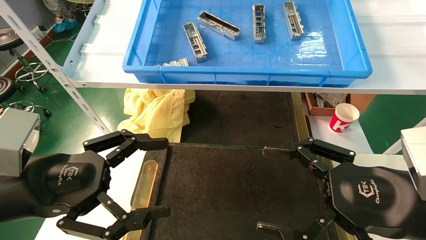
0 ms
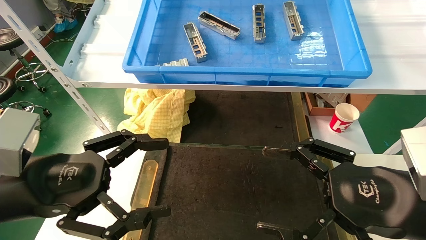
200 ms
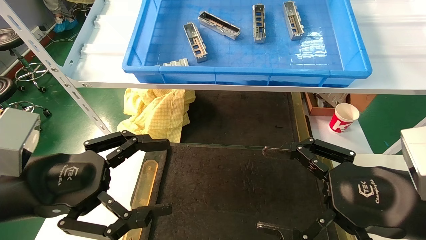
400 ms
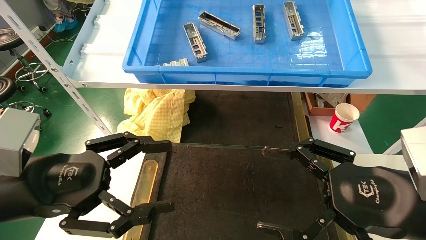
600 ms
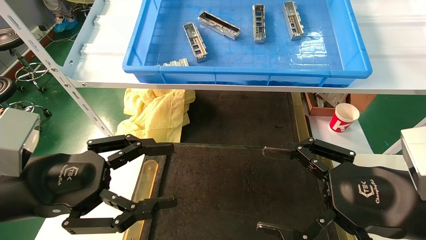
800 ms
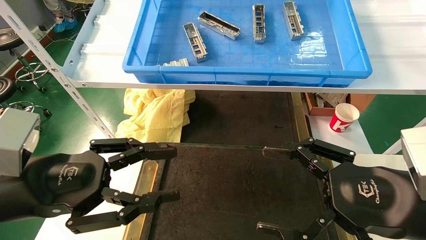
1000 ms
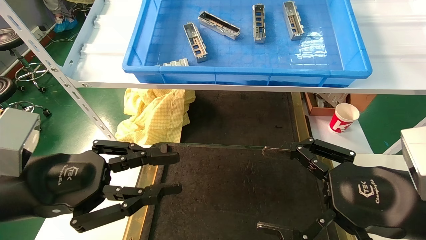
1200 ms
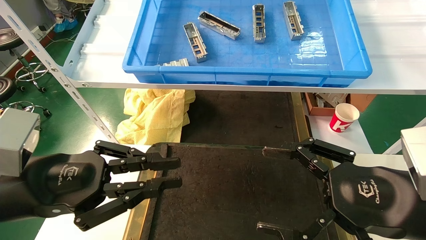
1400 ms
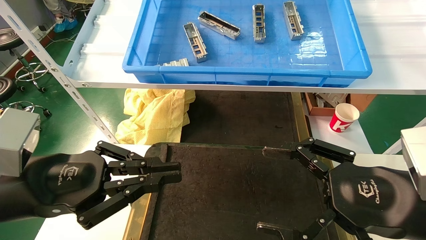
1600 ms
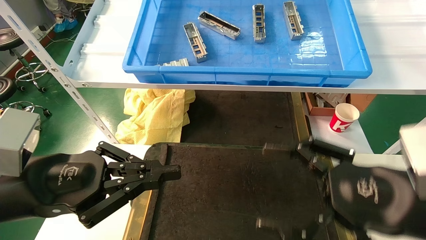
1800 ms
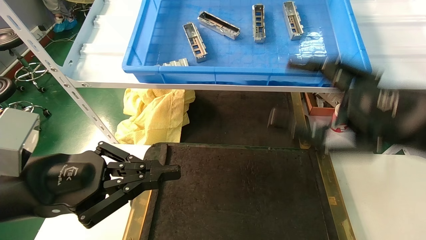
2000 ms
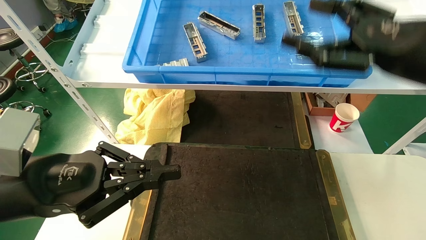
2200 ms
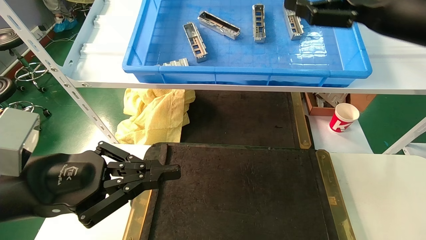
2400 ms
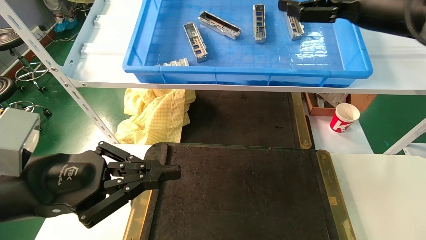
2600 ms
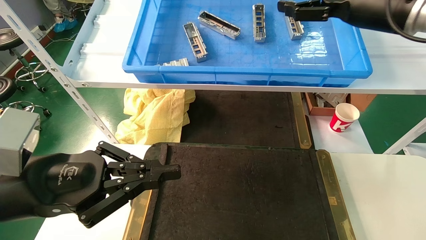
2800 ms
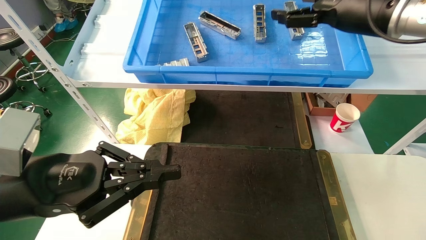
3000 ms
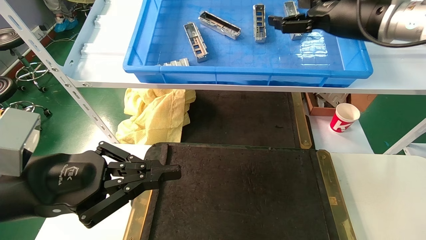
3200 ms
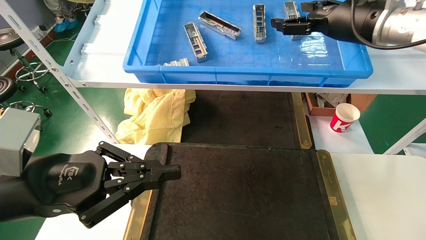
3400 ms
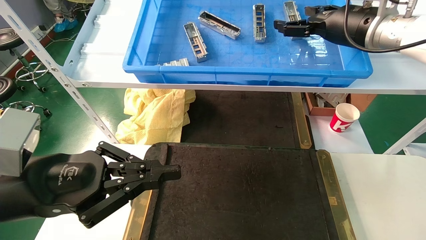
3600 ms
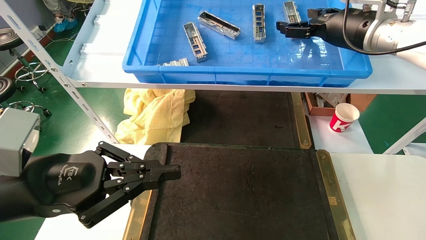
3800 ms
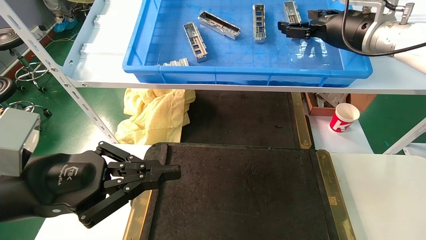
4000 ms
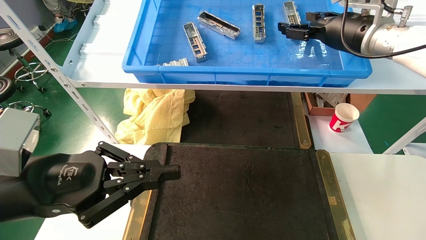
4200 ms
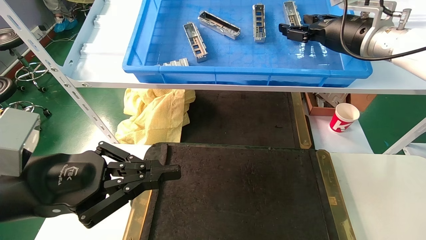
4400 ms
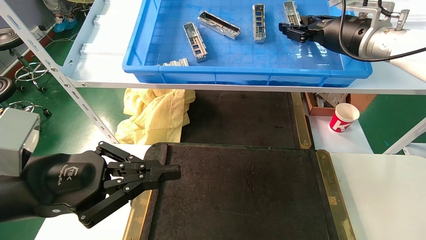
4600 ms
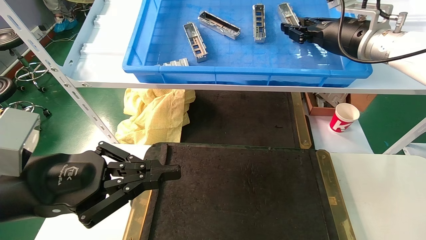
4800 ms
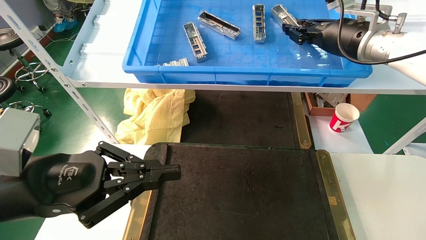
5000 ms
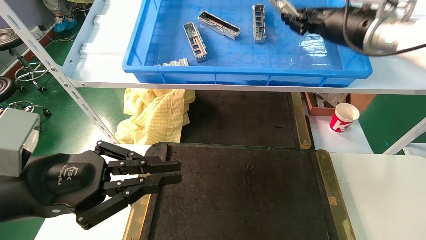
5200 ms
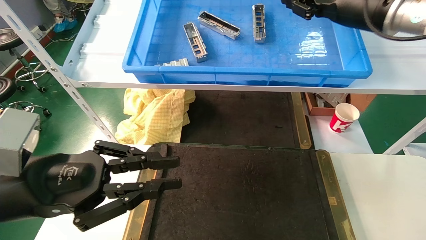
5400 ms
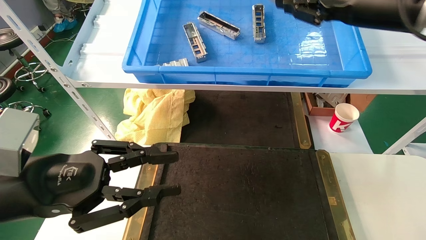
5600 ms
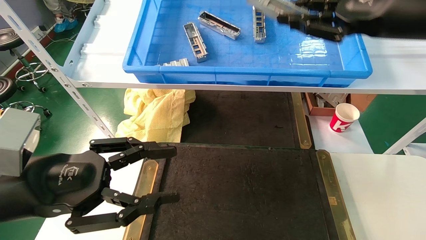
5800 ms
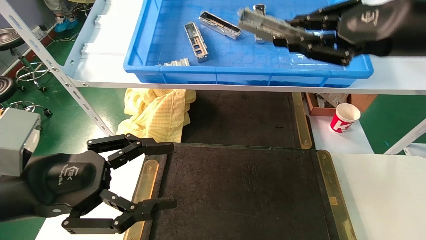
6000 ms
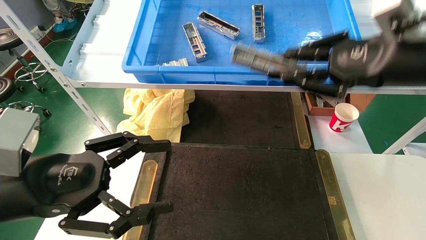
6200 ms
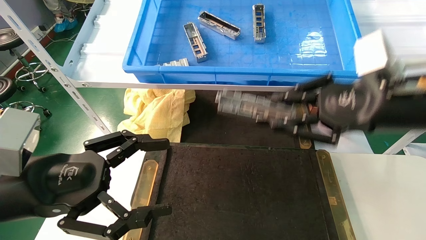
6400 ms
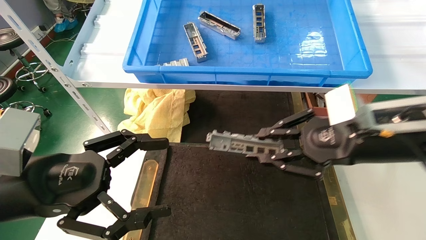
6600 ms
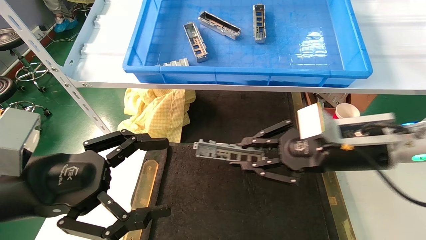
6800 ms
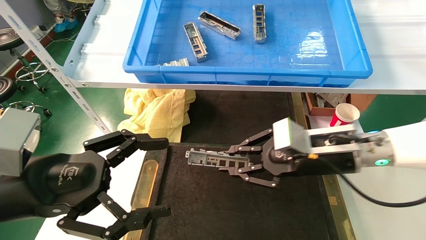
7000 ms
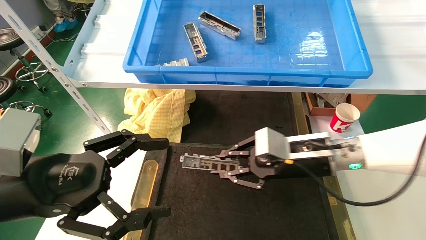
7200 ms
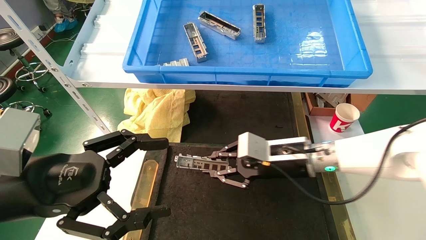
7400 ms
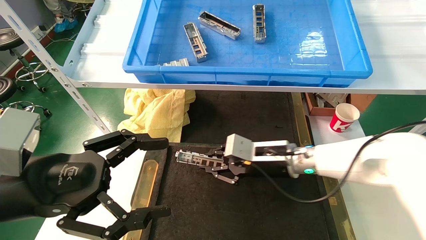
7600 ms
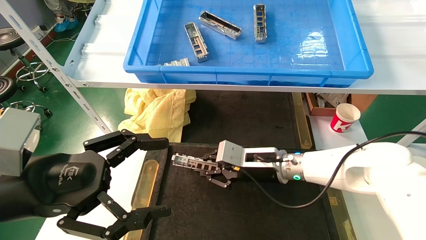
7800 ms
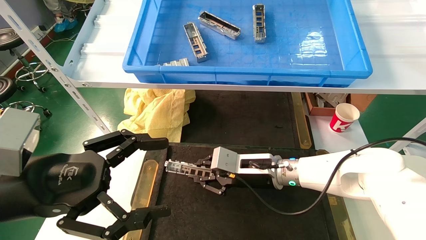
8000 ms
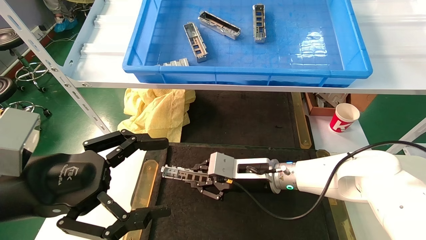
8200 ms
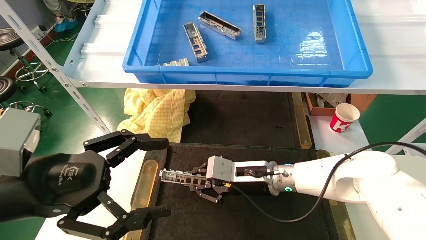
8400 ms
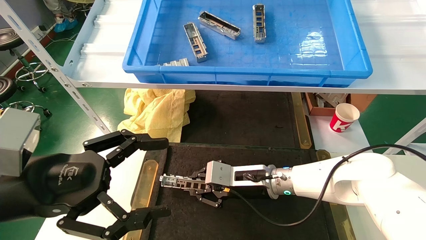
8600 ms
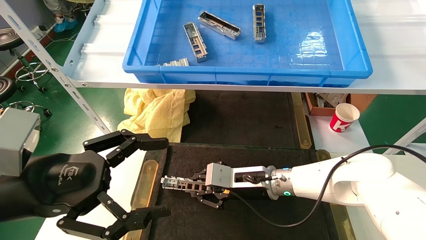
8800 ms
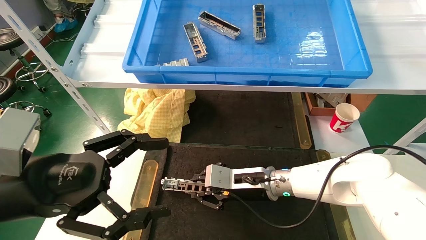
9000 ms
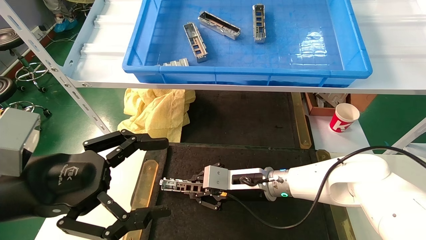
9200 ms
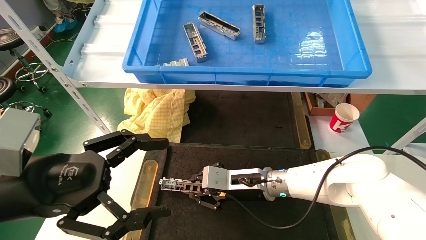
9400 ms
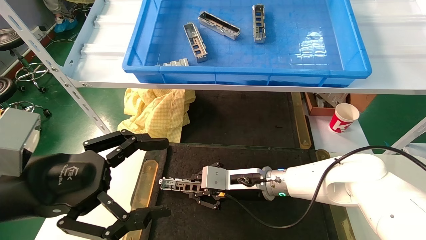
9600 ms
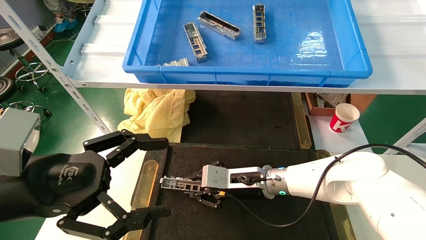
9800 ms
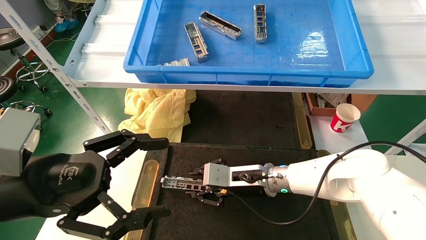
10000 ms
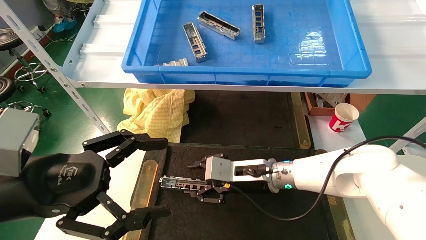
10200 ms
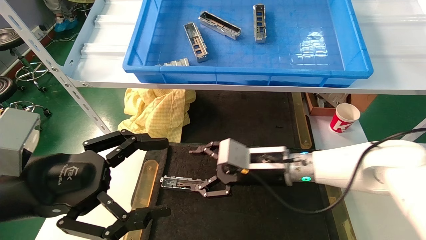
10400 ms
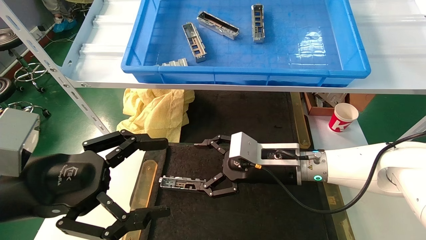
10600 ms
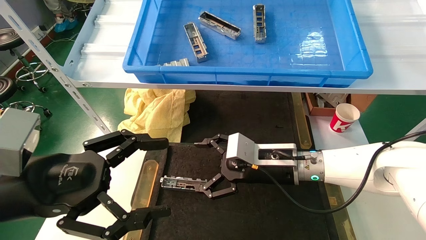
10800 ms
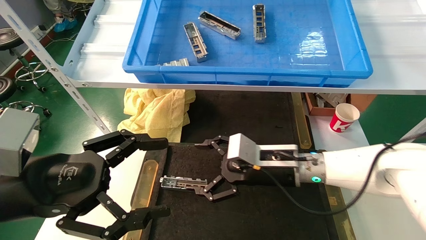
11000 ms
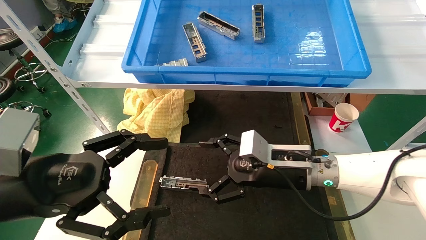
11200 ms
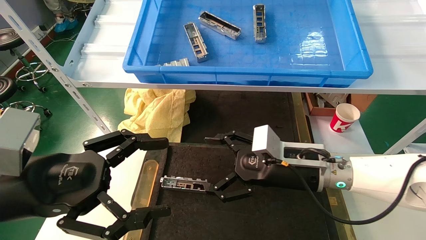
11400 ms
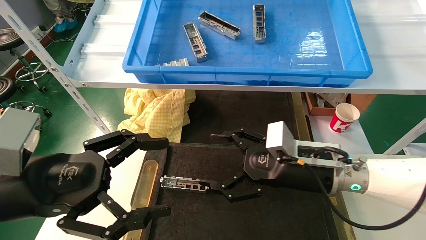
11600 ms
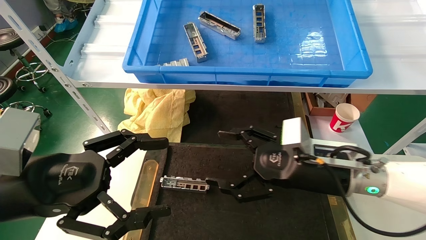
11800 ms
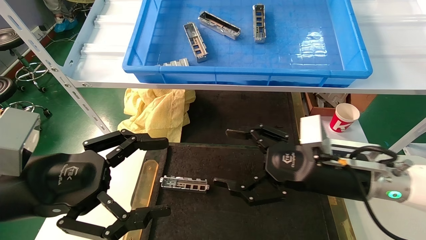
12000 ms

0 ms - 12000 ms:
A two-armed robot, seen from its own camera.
Task of the whole recording: grasp the part and place them on the black container.
Step, 2200 ms - 5000 ms: Pick up and lift the front USB bracket from the feeding area.
Step, 5200 ms - 10200 ms: Place the front USB bracket into the box.
0 ms - 1600 ms: The left gripper closes its fingers.
1600 ms - 3000 ms: The right gripper moves upward and forward, approximately 30 cm.
3000 ms - 4400 ms: The right gripper shifts roughly 5 cm forward.
4400 ms - 6000 ms: The right gripper heads backward, covering approximately 15 cm, and closes up. Meanwhile the left gripper opens its fingers.
6000 ms - 7600 ms: The right gripper moves downward, to the left and forward, about 30 cm; the left gripper opens its fingers.
7600 ms - 9000 ms: The right gripper heads downward, covering approximately 5 cm.
9000 ms - 10400 ms: The right gripper shifts by about 5 cm, and opens up.
10400 ms - 12000 ms: The right gripper shifts roughly 15 cm to the right and backward, and opens its fingers.

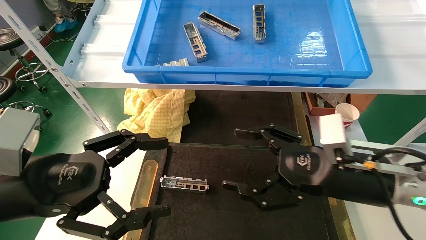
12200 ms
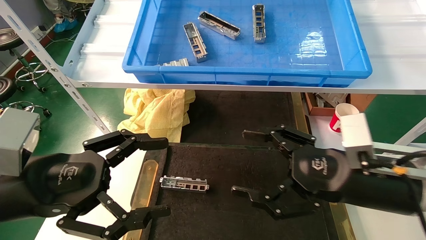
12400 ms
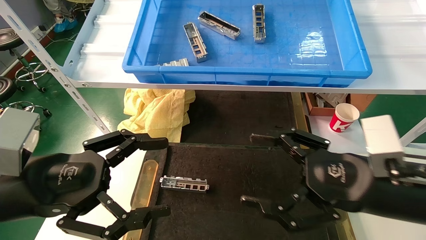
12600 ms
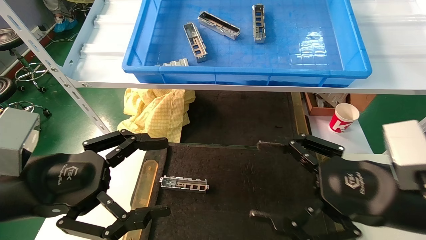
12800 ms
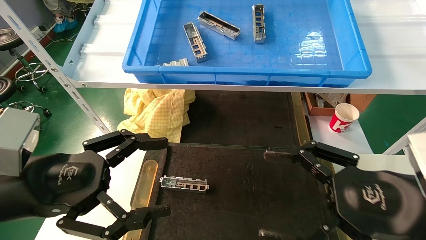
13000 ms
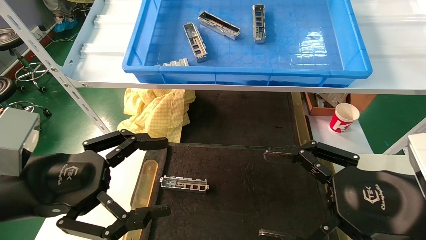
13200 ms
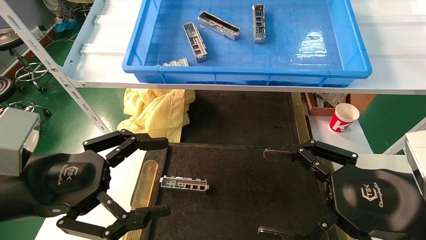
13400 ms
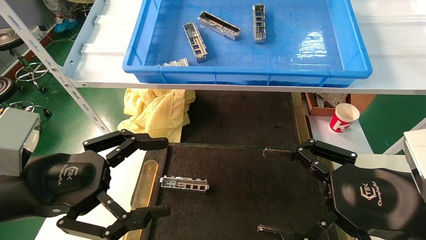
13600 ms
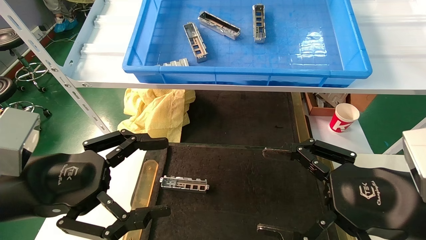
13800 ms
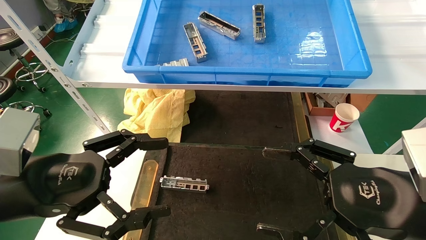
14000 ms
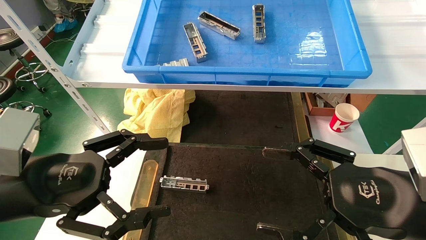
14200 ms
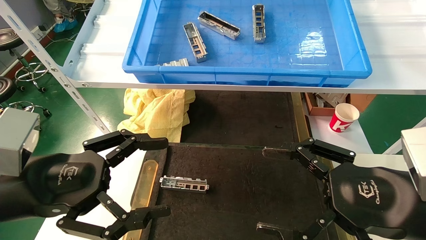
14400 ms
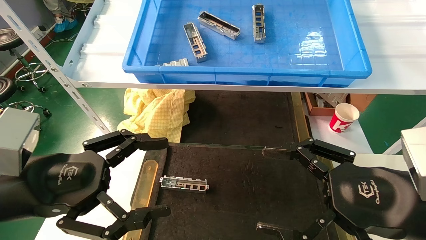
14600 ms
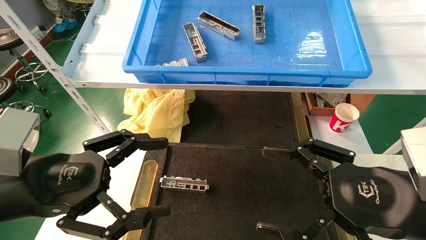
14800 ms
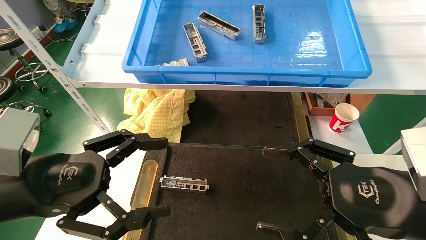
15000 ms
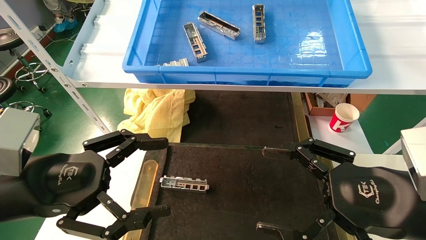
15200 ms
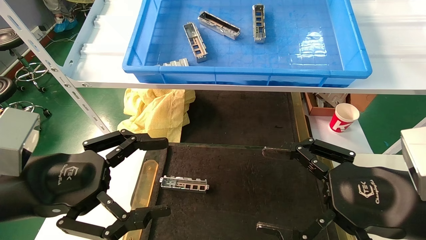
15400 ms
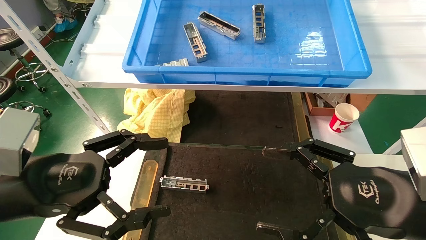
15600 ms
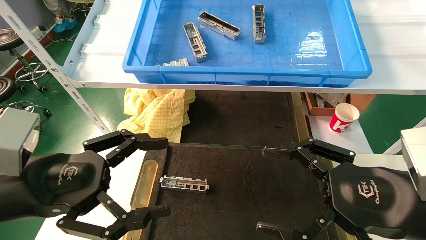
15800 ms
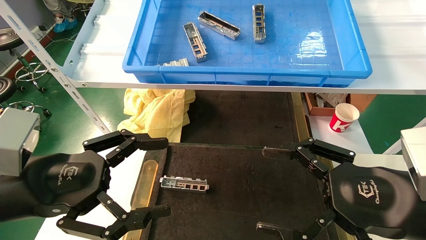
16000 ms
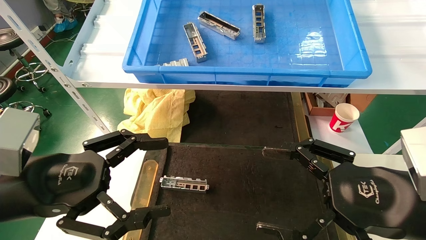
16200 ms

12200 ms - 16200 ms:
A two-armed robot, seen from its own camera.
Task of the whole recording: grasp the part and place them on the black container.
12200 ms - 13600 ms: The right gripper is displaced backward by some 10 cm.
13600 ms - 16200 ms: The two grippers keep their place.
